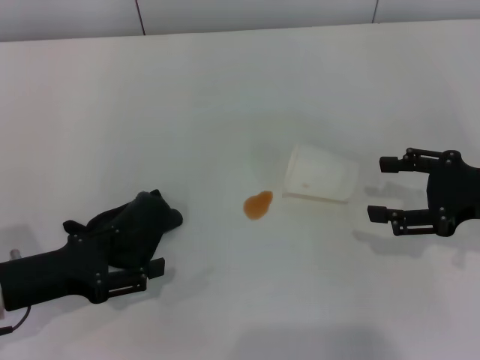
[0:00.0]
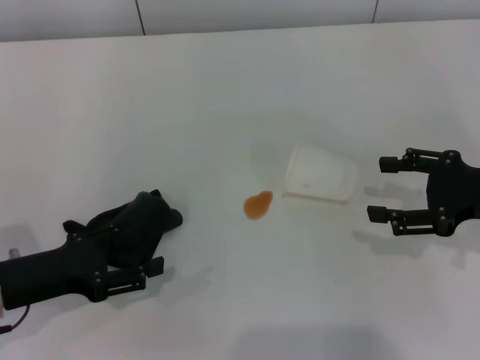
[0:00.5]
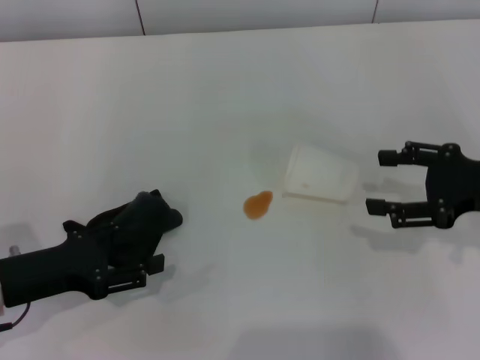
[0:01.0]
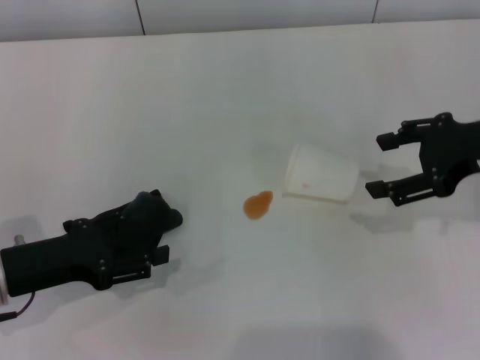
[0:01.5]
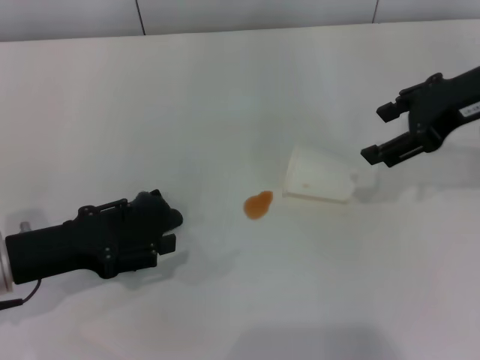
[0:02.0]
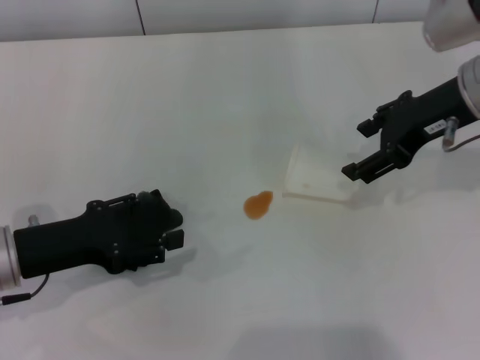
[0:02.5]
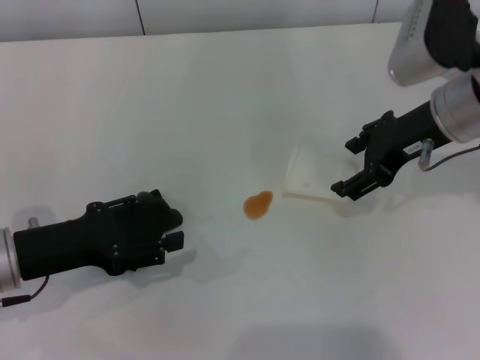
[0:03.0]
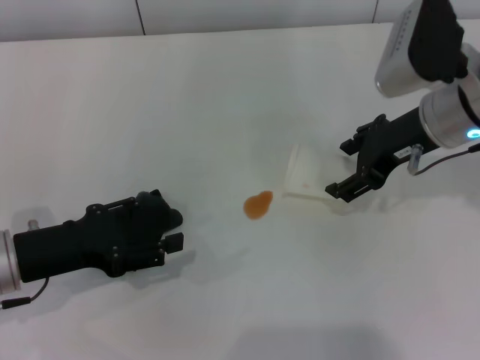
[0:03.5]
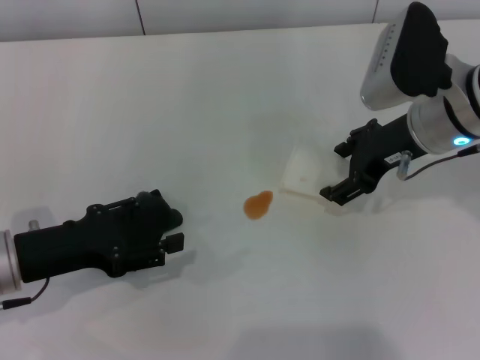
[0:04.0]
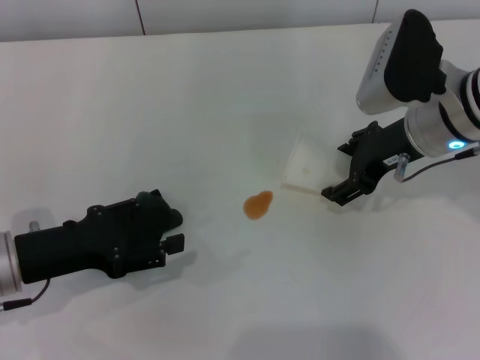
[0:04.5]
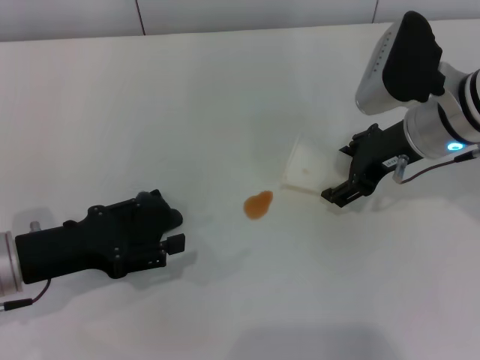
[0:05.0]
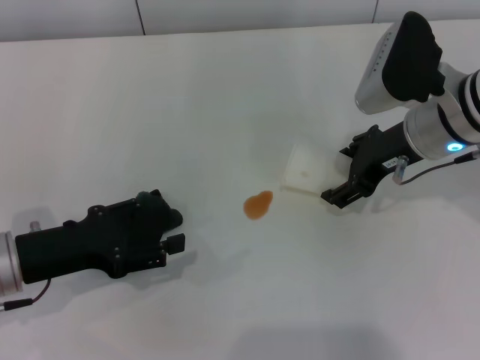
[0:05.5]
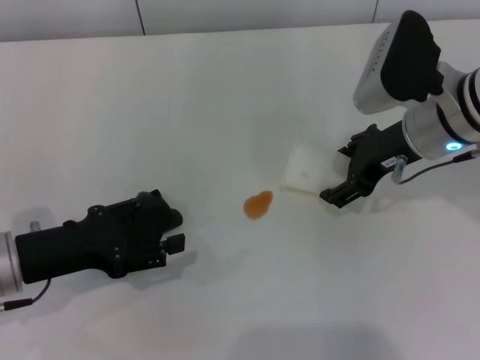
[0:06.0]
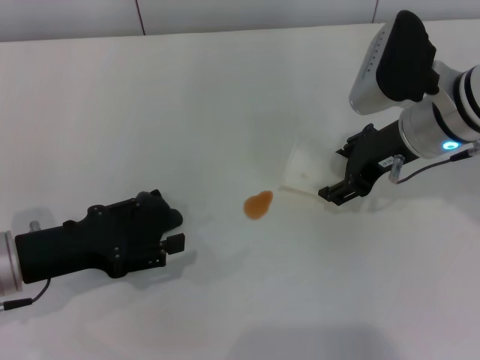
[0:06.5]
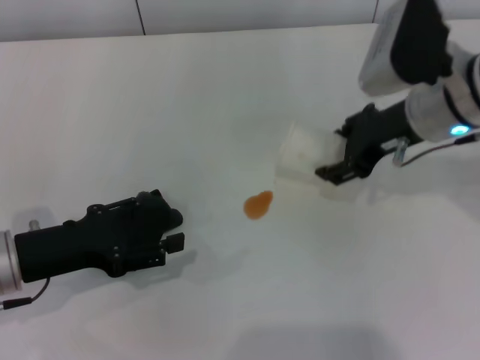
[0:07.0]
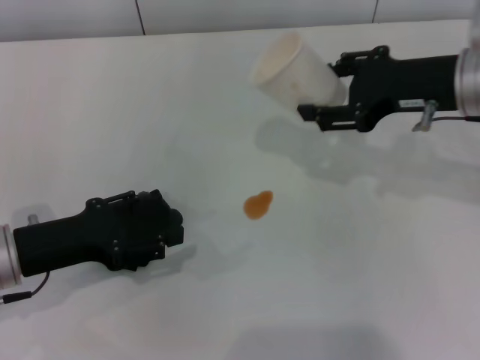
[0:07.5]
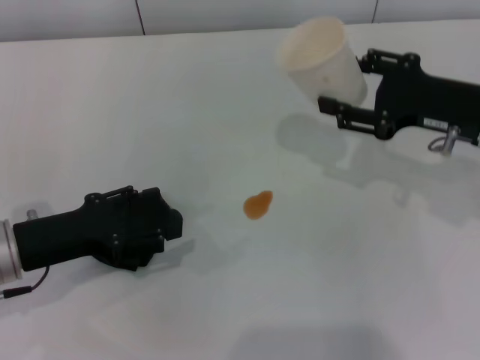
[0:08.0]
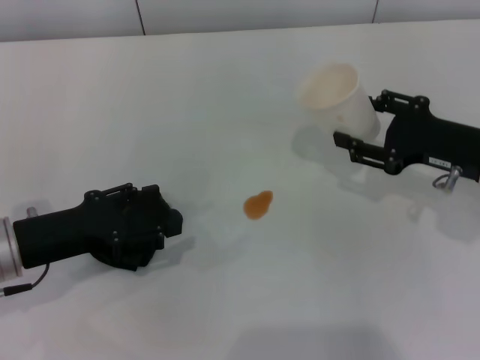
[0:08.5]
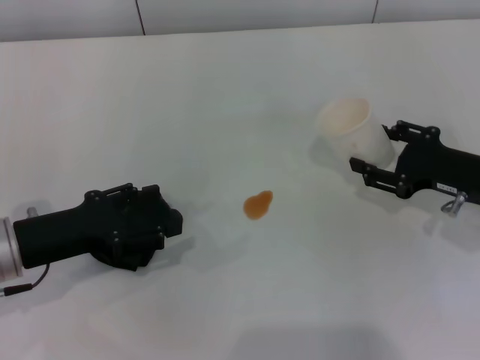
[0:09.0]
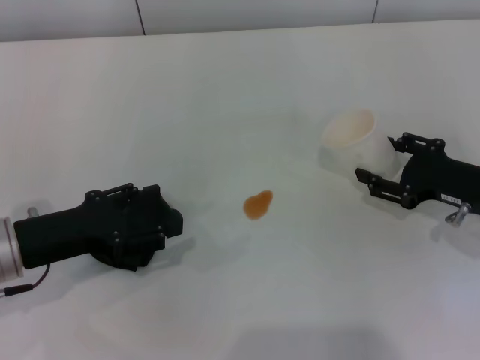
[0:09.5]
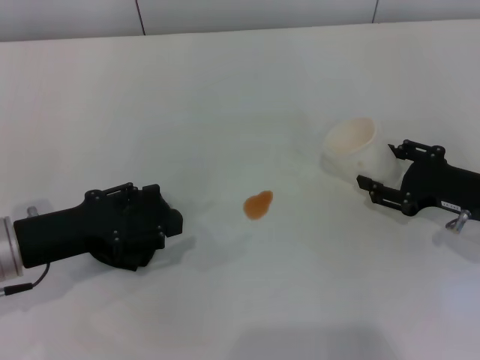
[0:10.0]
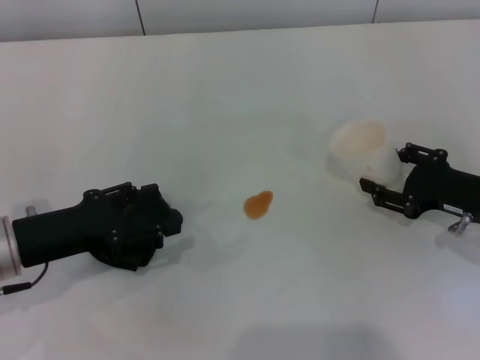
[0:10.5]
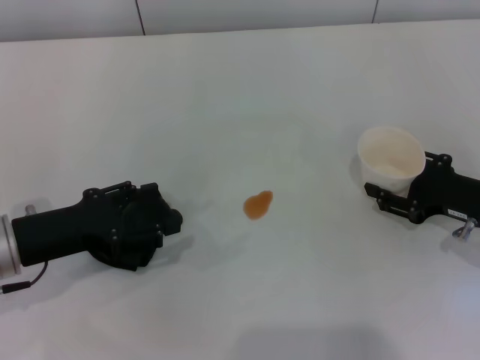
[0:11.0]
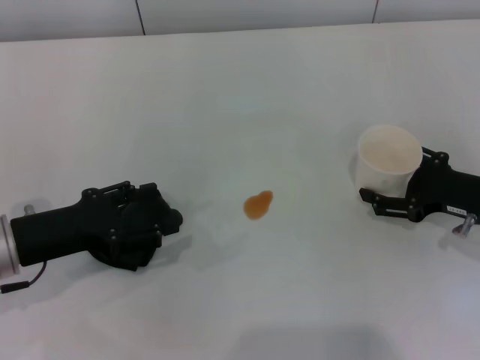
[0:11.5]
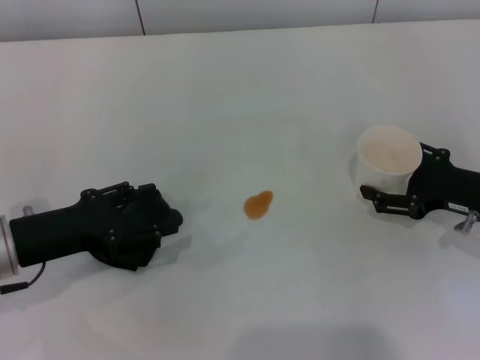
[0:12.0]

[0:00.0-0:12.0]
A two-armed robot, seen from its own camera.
Step, 0:00.0 to 0:06.5: Grasp the paper cup with the right gripper.
0:00.0 to 0:02.0: The right gripper goes approximately 15 cm upward, forward and to the left.
0:02.0 to 0:04.0: The right gripper heads downward and to the left, covering approximately 10 cm.
0:04.0 to 0:06.0: Both grippers stay put.
0:06.0 to 0:08.0: The right gripper moves to the right, approximately 5 cm, and closes up.
0:08.0 to 0:10.0: The right gripper heads downward, covering approximately 10 cm.
0:10.0 to 0:12.0: The right gripper opens its fingers.

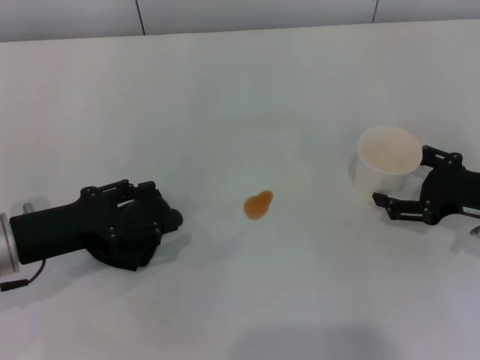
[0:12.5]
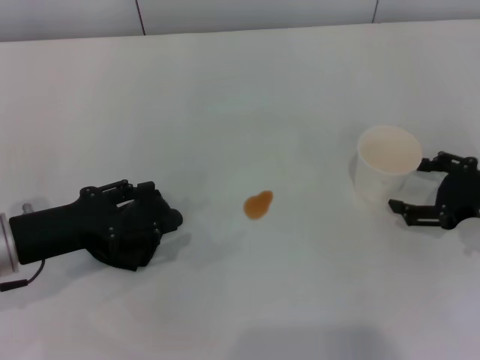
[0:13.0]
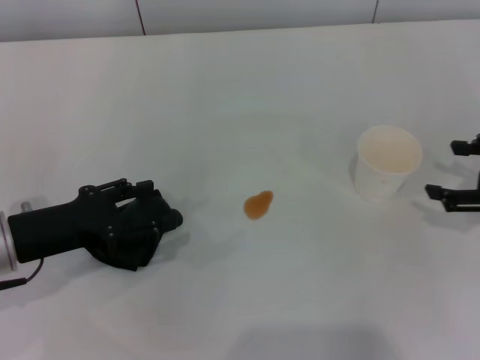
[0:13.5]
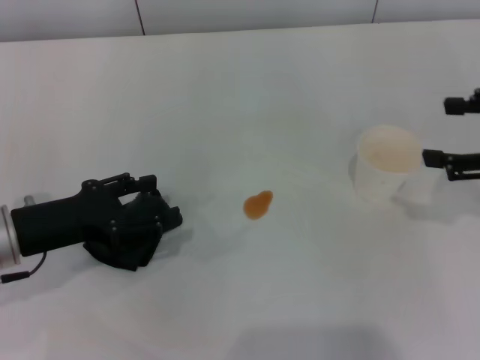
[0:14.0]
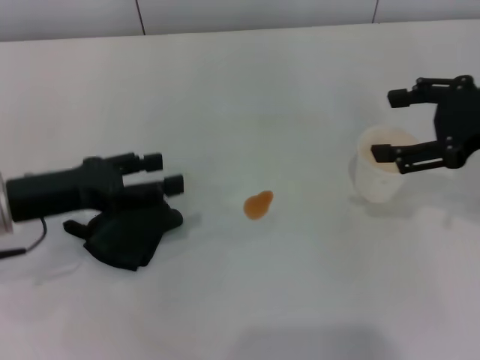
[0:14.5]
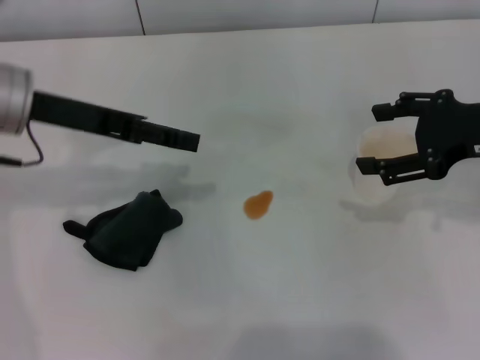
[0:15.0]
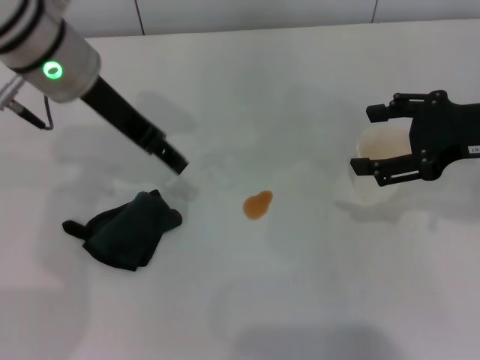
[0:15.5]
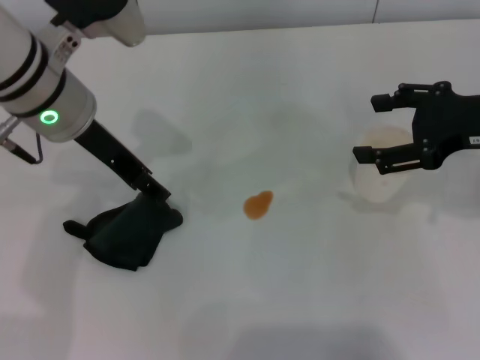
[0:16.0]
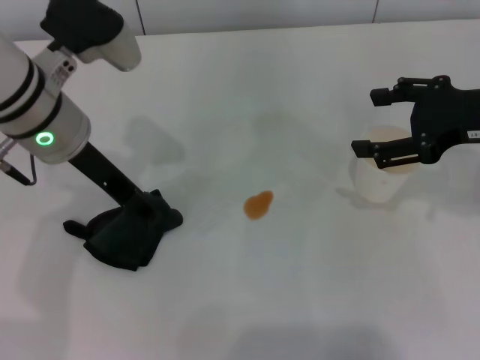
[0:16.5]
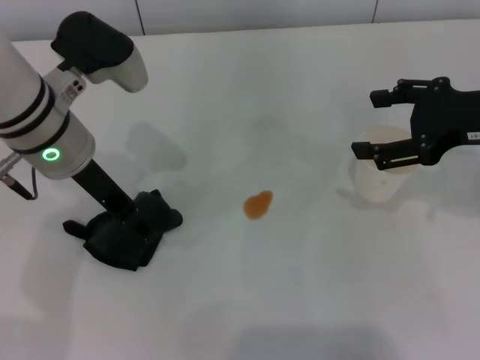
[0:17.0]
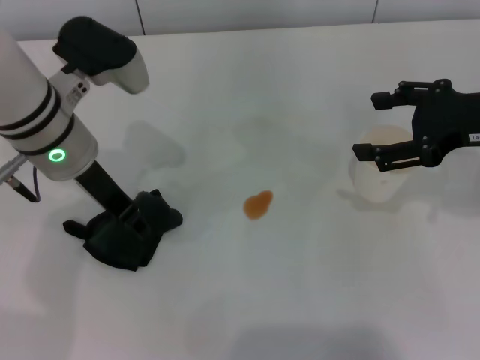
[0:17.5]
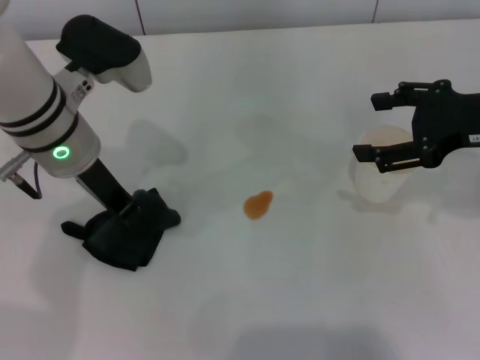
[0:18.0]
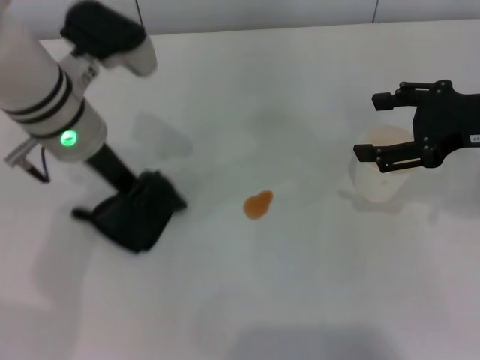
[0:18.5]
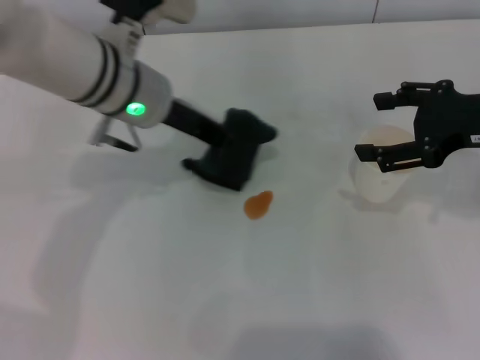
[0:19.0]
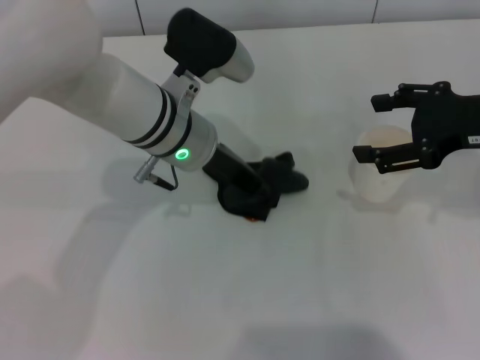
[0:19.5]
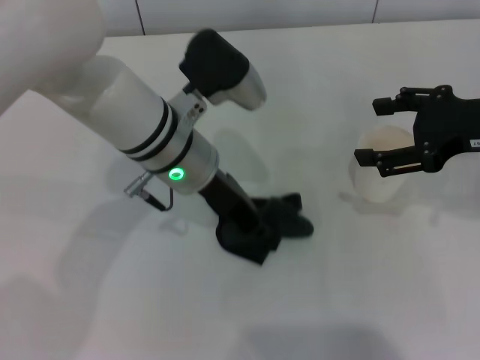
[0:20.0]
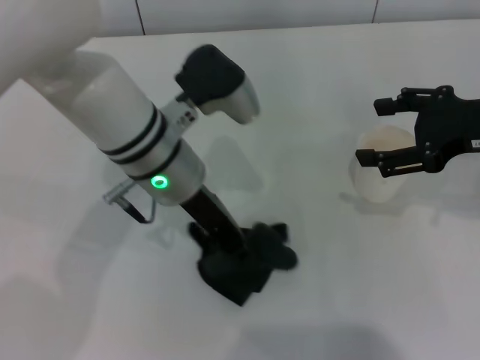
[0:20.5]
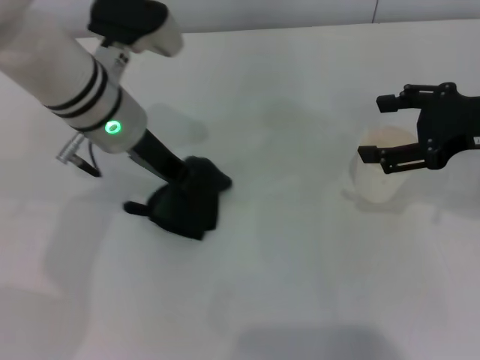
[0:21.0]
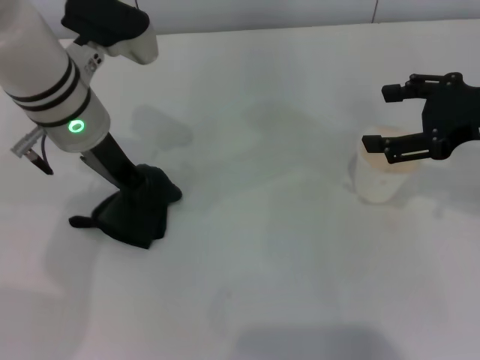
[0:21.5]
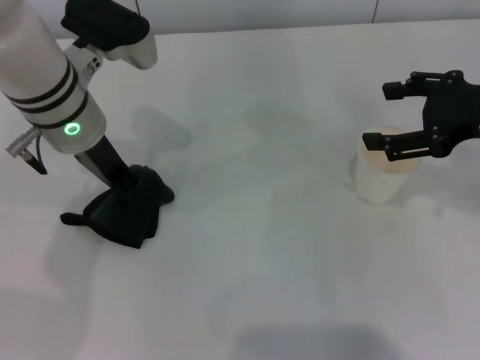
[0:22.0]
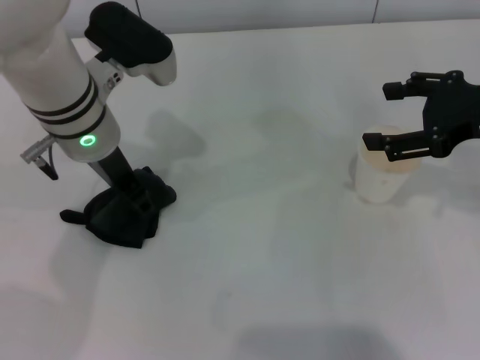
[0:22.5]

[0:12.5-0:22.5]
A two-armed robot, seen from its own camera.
Step, 0:13.5 to 0:18.0: Grasp the rag with the left gripper.
Step, 0:18.5 to 0:21.5: Wipe the stains off the table with the left gripper.
0:12.5 to 0:14.5: The right gripper shifts some 15 cm upward.
0:14.5 to 0:16.5: The left gripper is displaced to the right, forward and upward by approximately 15 cm.
0:16.5 to 0:18.5: The left gripper closes up.
0:18.5 to 0:20.5: The left gripper moves to the right, some 10 cm.
0:20.5 to 0:22.5: The left gripper heads to the left, covering about 5 cm, and opens its fingers.

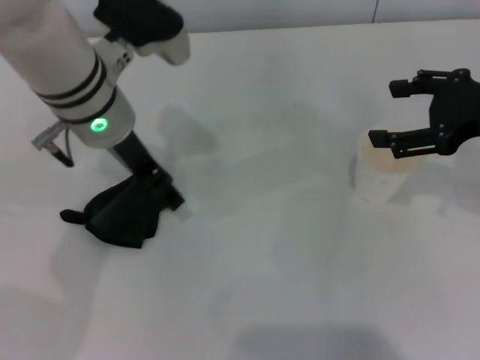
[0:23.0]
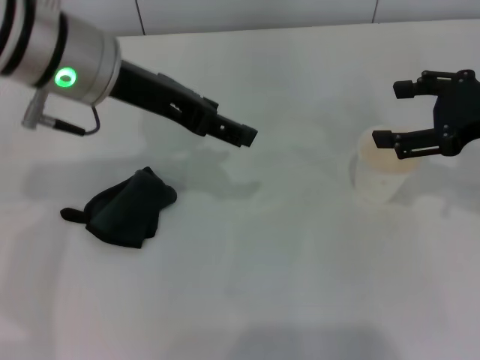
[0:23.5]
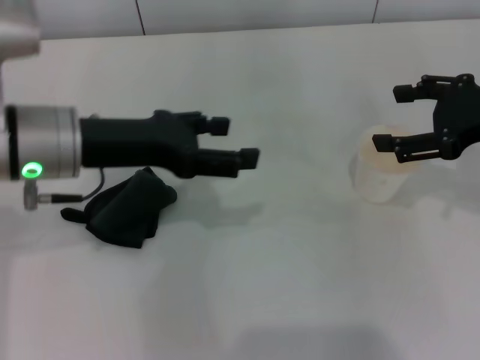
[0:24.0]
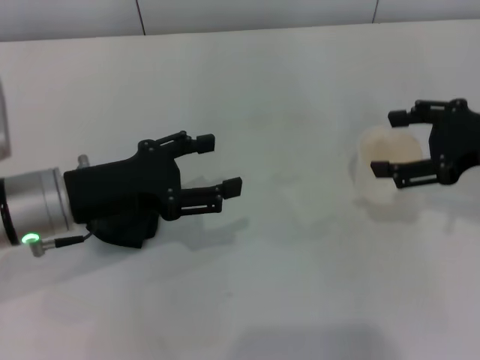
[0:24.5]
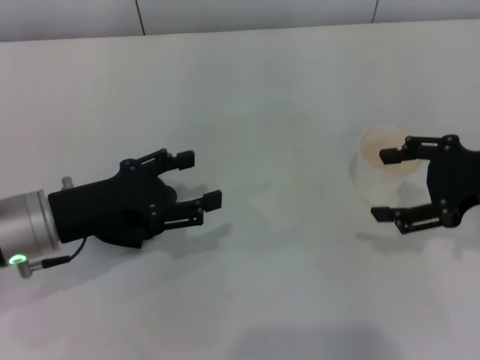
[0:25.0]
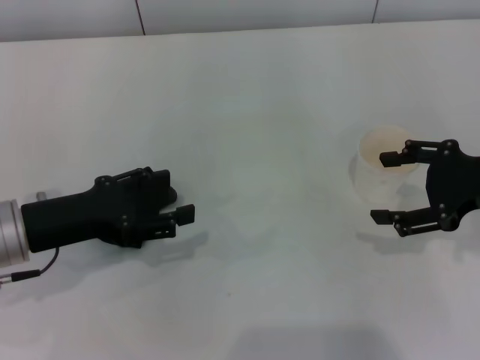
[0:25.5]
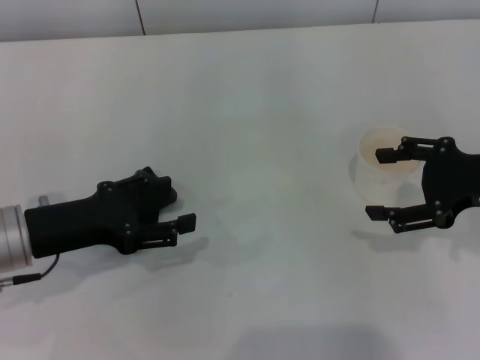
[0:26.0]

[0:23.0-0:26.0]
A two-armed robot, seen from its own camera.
0:23.0 to 0:24.5: The left gripper goes roughly 15 cm backward, to the left and downward.
0:24.5 to 0:26.0: The left gripper shifts by roughly 5 cm.
